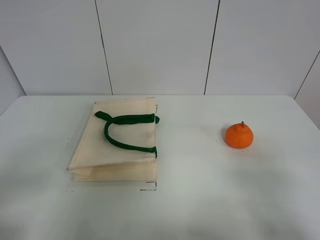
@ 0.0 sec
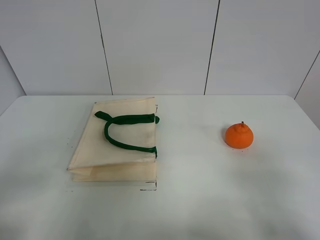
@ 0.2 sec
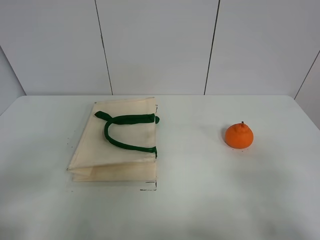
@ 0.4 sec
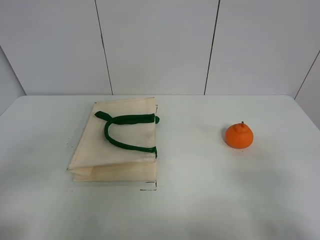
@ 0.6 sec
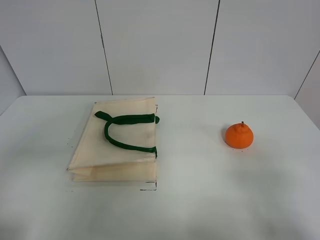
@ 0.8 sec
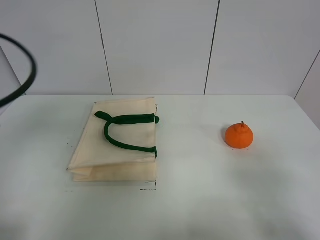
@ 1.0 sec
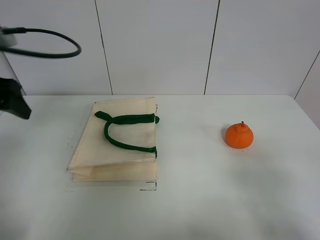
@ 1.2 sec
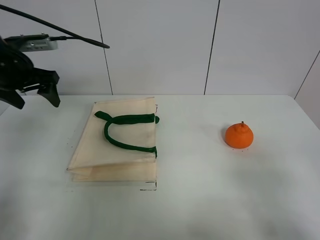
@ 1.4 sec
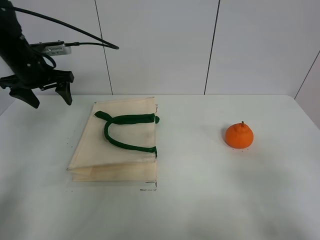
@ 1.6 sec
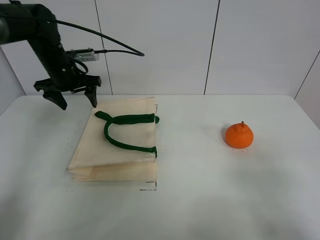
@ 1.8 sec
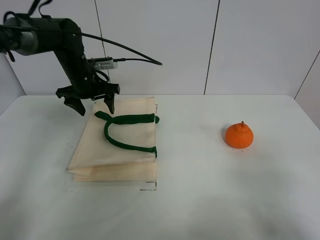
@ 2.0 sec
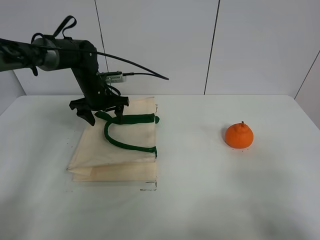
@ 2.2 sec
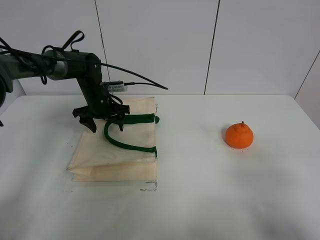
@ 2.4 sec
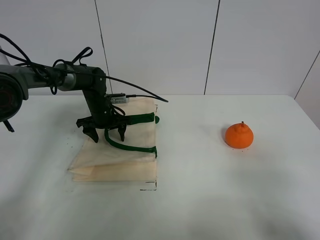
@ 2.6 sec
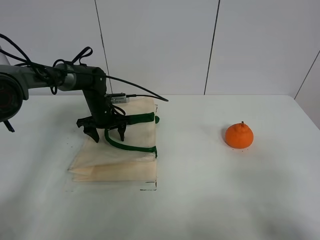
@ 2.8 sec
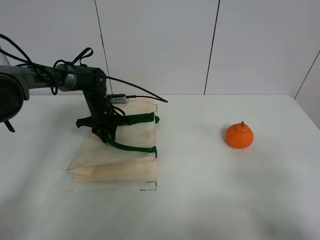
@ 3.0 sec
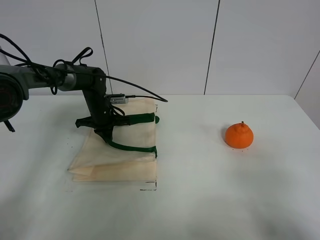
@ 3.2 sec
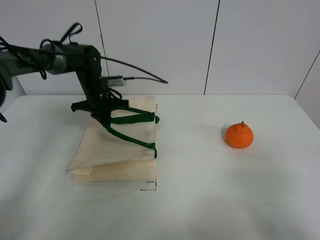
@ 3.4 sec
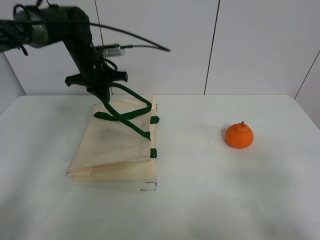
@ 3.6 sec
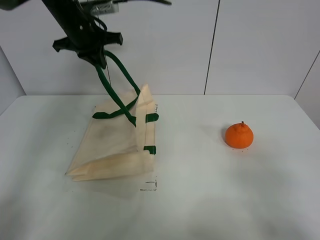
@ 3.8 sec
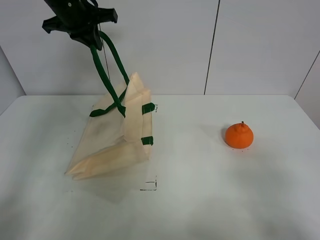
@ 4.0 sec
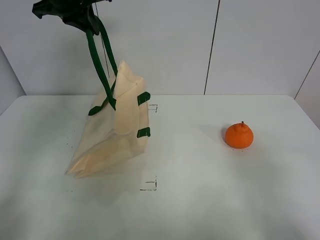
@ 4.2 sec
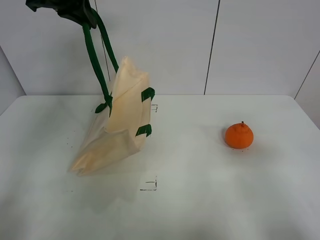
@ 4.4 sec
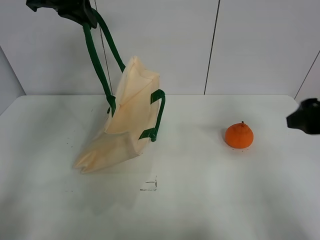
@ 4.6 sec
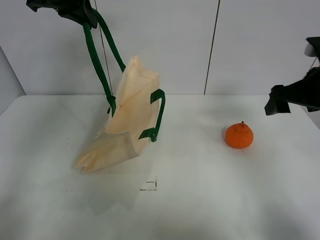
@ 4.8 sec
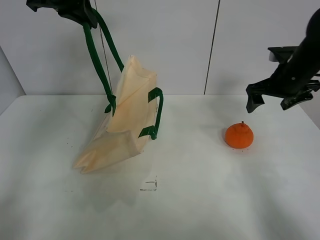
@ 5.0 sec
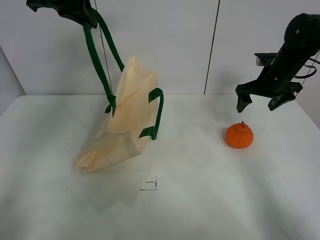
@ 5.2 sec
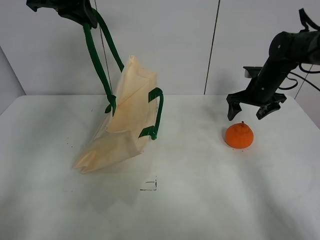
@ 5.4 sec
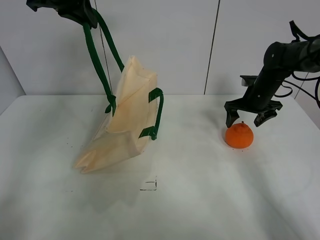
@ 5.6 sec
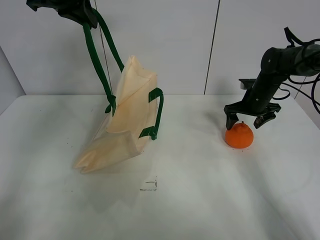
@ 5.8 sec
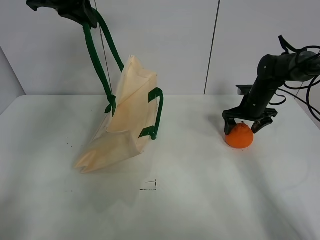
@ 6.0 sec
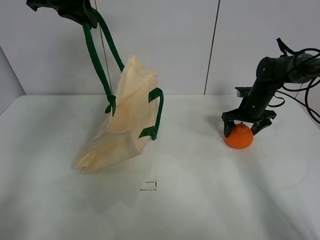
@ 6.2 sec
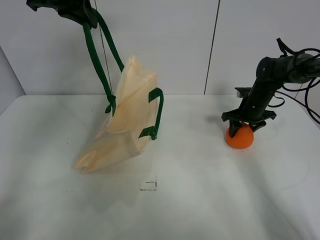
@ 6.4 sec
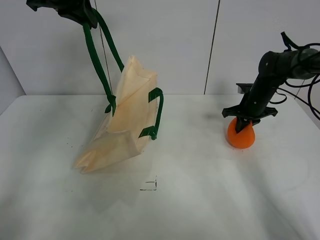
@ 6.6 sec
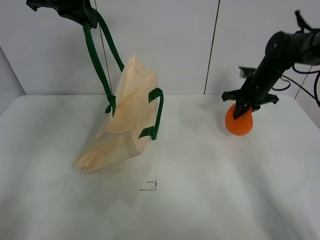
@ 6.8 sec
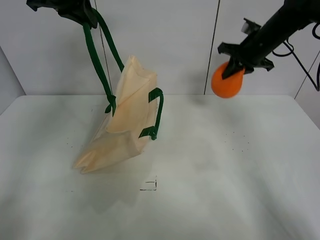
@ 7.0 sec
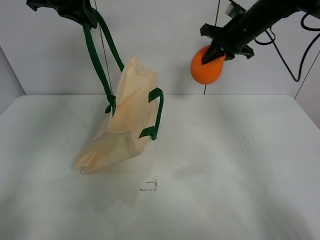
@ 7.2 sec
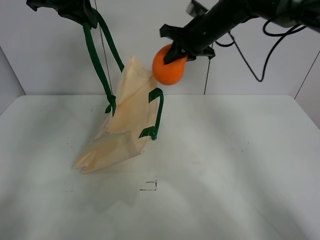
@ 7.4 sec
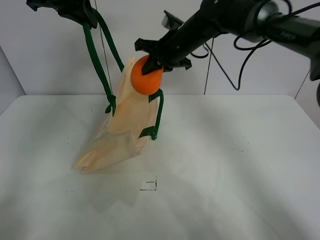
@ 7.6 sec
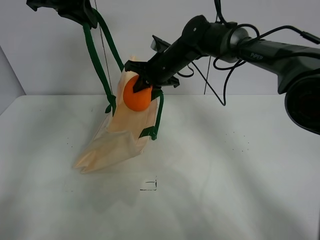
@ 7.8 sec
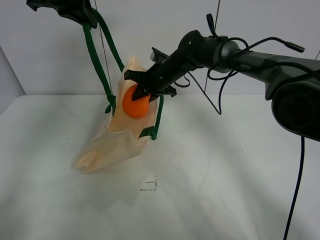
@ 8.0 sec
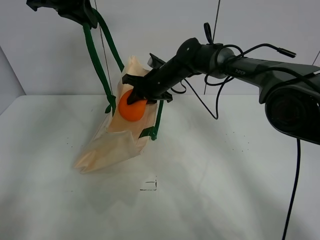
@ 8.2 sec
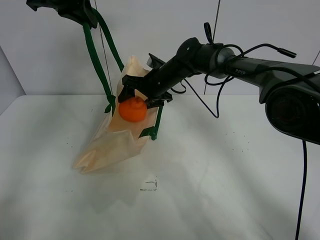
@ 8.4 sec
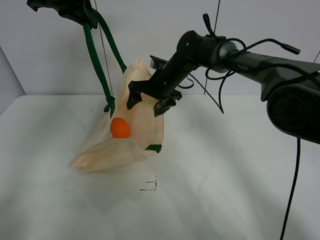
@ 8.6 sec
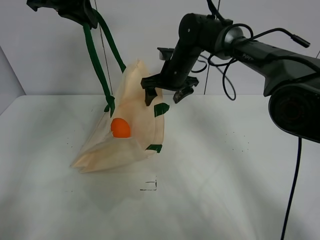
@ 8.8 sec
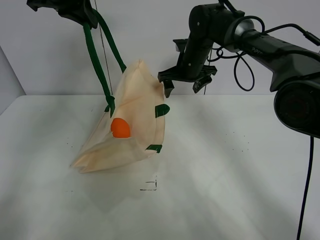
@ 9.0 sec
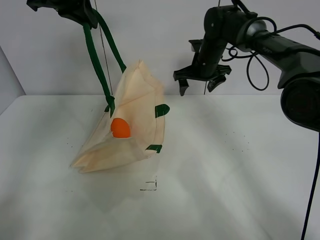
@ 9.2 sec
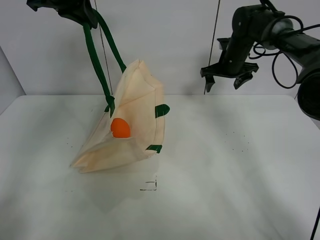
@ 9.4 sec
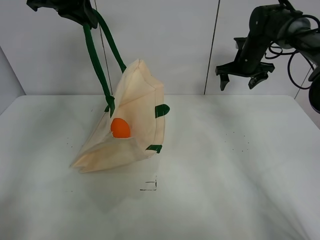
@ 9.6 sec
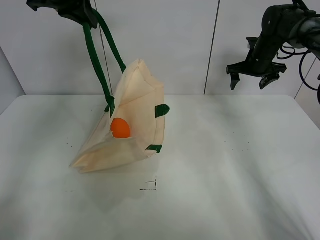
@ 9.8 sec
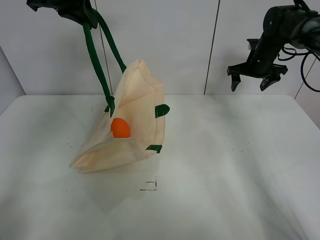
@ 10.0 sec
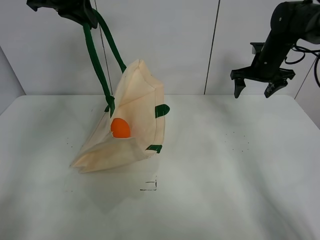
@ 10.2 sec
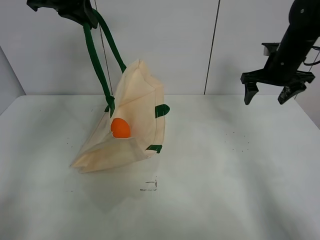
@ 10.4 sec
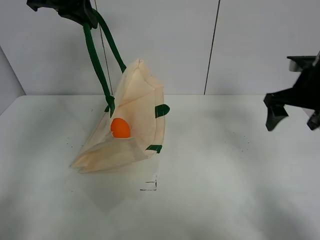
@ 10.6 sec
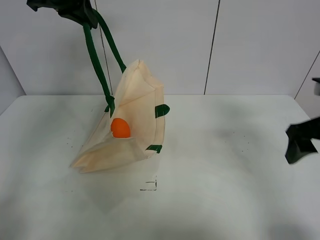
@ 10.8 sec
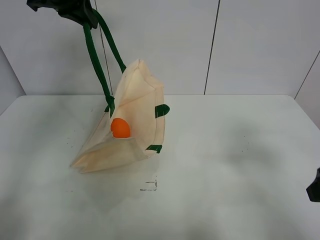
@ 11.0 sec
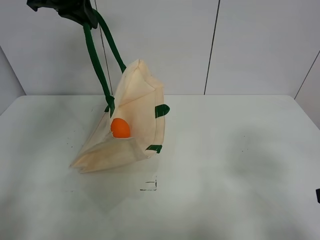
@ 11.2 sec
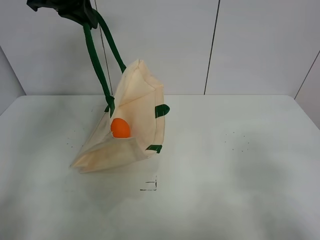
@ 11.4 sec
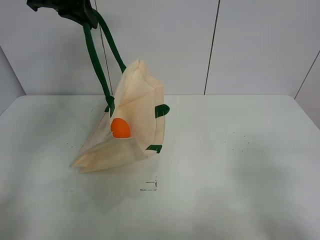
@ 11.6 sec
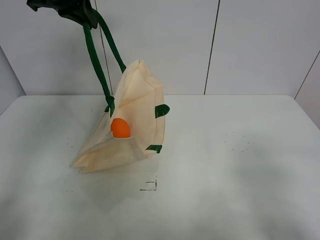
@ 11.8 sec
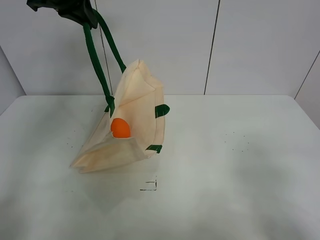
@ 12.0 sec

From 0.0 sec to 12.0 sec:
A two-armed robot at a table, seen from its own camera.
Task of the whole recording: open the white linen bag and put the orange in the bag.
Step, from 0.0 sec to 4.2 sec: Lift the handbag with left gripper.
Step, from 4.4 sec to 6.6 sec: Grasp the orange with right gripper.
Step, from 6.8 sec to 8.6 sec: Place the orange in the handbag with right gripper.
From 0.0 sec to 1.6 sec: The left gripper moves forward, about 40 cm.
From 1.6 sec to 3.0 sec: The left gripper travels downward and to the right by about 20 cm, and closes its fingers.
From 3.0 sec to 4.4 sec: The left gripper shifts roughly 35 cm upward. Meanwhile the right gripper heads forward, covering some 10 cm.
From 4.4 sec to 6.0 sec: The right gripper is displaced forward and downward by approximately 40 cm.
From 6.0 sec to 7.6 sec: The right gripper shifts some 25 cm to the left and upward, and closes its fingers.
From 7.6 sec to 9.0 sec: The right gripper ends up some 5 cm from where it was, and opens its fingers.
From 9.0 sec to 10.4 sec: The right gripper shifts some 20 cm to the right.
From 10.4 sec to 12.0 sec: The right gripper travels backward by some 40 cm.

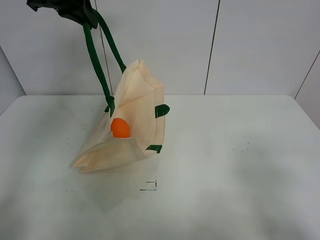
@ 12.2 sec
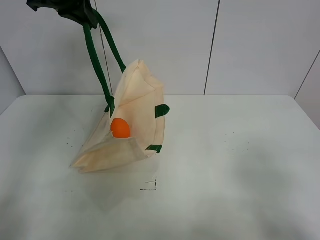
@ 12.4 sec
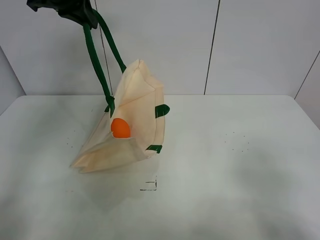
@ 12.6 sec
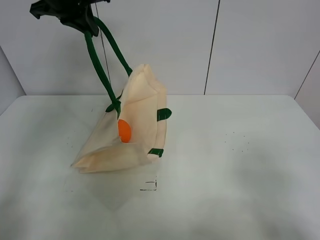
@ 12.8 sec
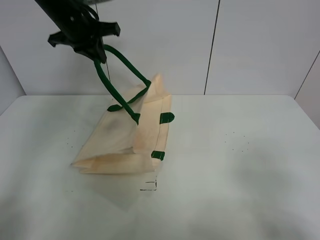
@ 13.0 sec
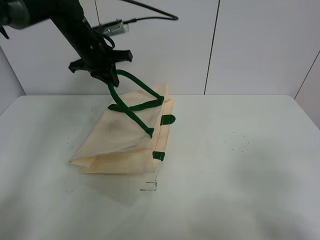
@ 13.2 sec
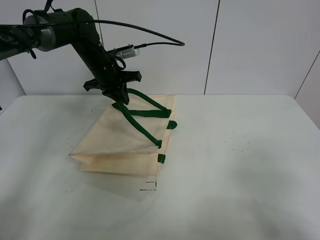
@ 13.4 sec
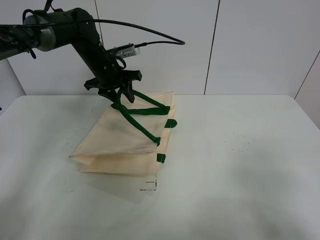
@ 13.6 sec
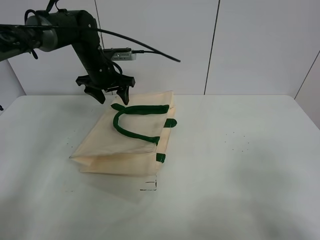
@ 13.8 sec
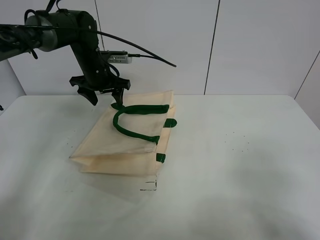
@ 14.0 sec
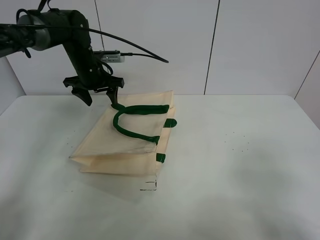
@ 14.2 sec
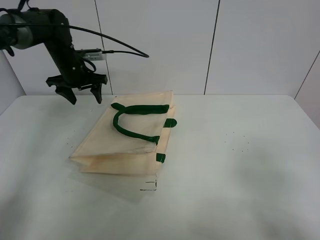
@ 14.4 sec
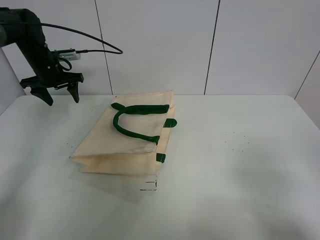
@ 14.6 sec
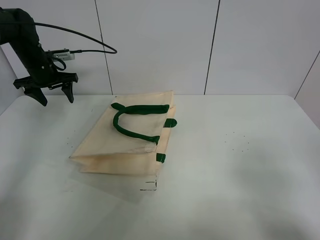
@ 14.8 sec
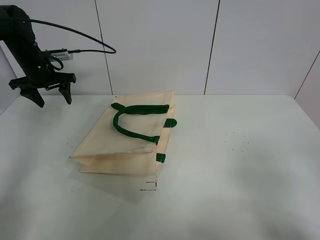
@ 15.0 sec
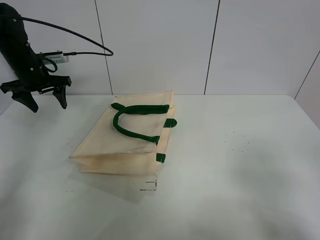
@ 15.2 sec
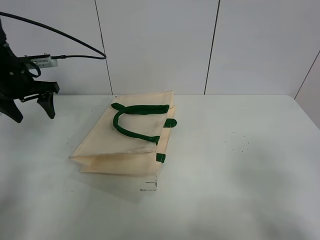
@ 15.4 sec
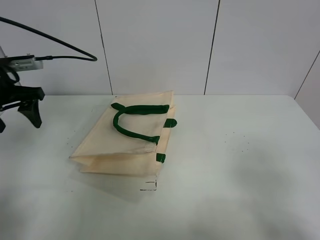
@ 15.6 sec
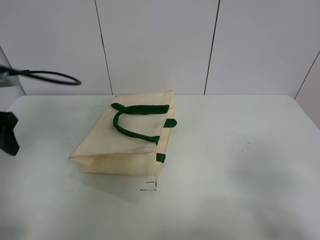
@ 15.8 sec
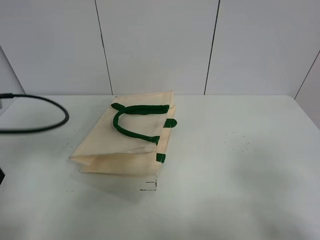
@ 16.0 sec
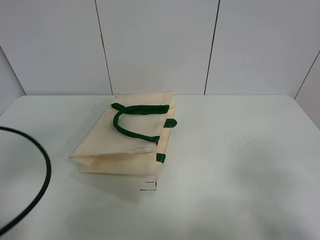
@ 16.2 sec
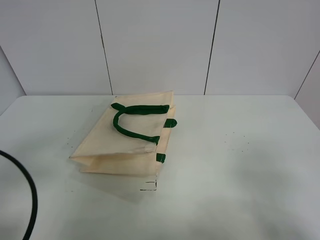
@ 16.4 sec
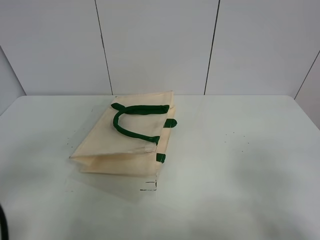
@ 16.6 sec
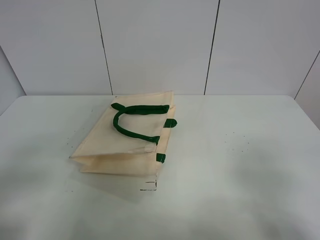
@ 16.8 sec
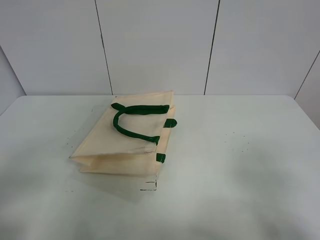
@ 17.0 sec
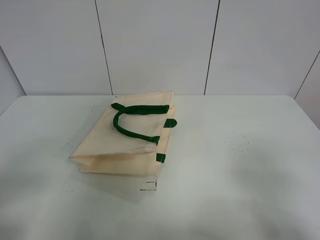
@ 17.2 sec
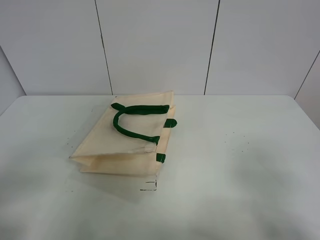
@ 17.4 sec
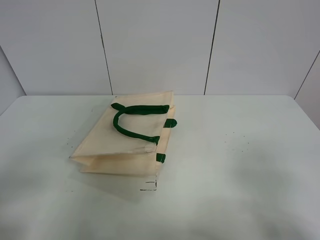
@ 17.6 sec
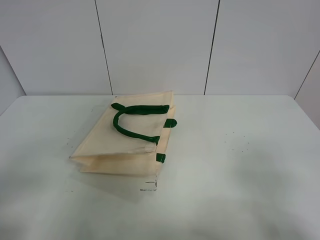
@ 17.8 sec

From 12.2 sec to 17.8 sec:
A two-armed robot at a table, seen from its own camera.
Task of the whole recording: open the white linen bag and put the orange in the bag.
From 12.2 sec to 13.6 sec: The left gripper heads downward, covering some 20 cm, and opens.
From 13.6 sec to 15.0 sec: The left gripper goes some 15 cm to the left.
From 15.0 sec to 16.4 sec: The left gripper is displaced backward by roughly 40 cm.
From 16.4 sec to 17.8 sec: The left gripper moves backward, approximately 5 cm.
